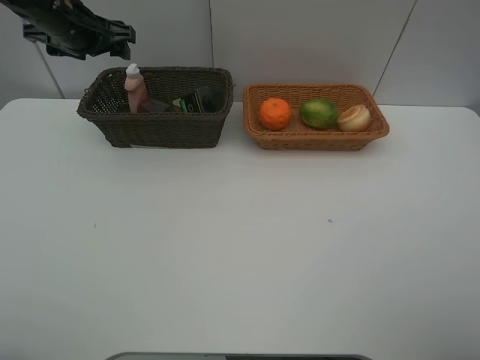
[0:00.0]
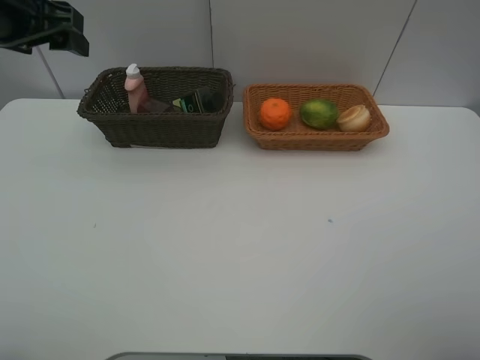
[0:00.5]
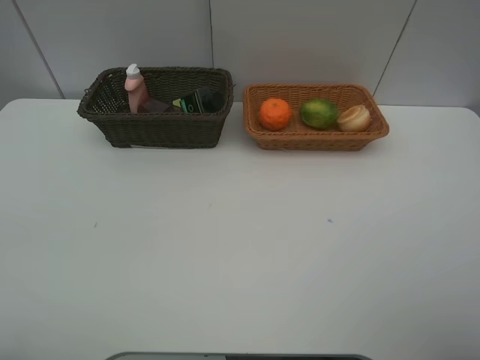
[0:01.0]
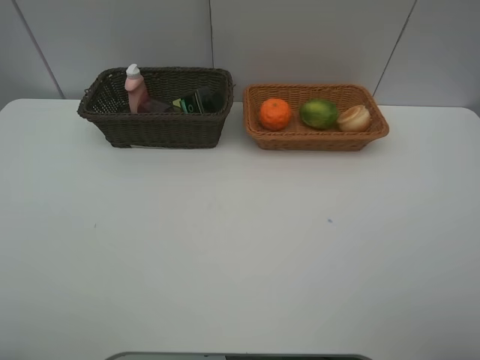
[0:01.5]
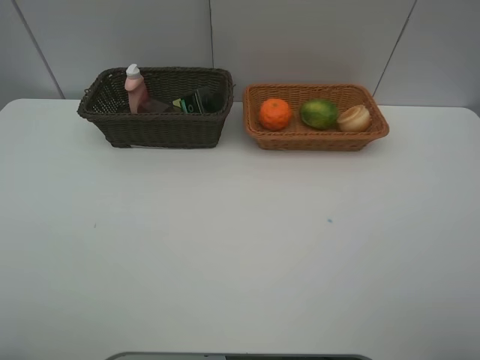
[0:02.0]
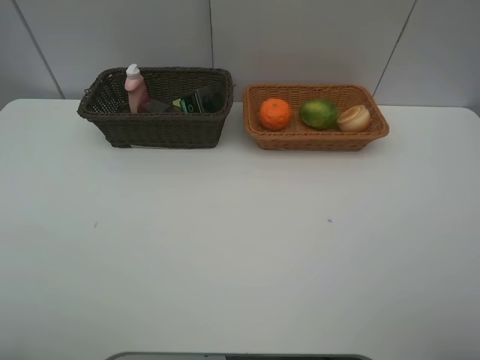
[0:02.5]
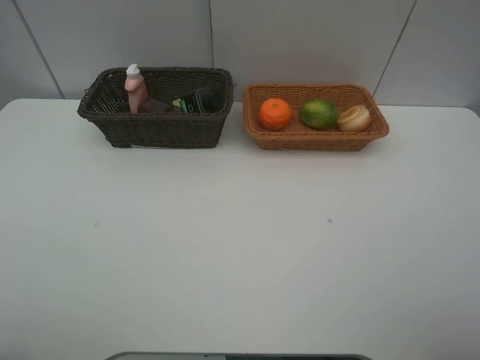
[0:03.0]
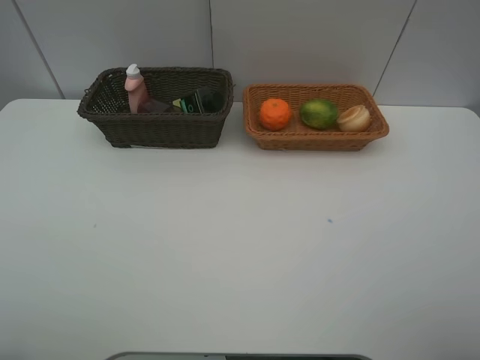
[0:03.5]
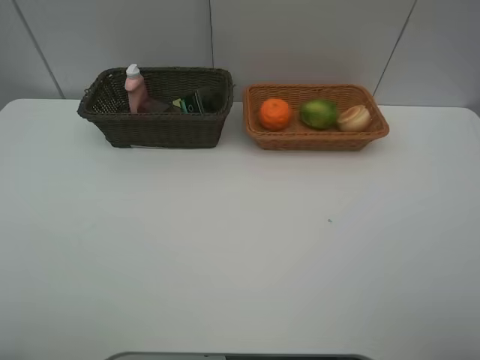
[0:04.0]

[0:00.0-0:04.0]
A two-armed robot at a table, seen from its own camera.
Task of the whole recording: place multiple objects separately in different baskets.
0:00.0 to 0:02.0: The left gripper travels backward by about 40 cm.
0:02.0 to 0:04.0: Both grippers stay about where they are.

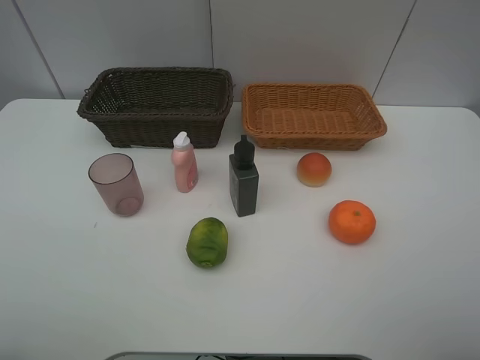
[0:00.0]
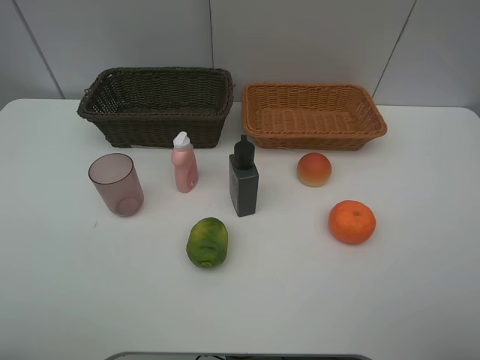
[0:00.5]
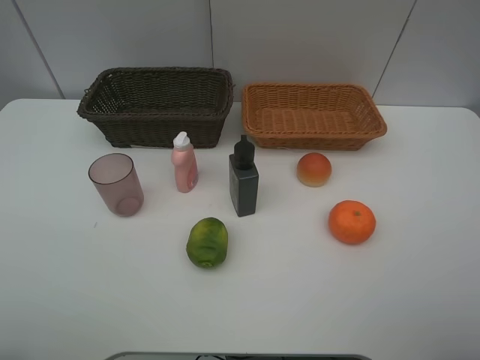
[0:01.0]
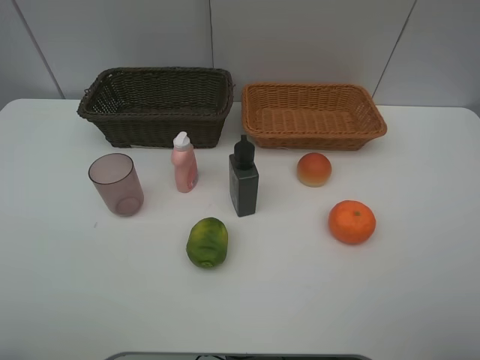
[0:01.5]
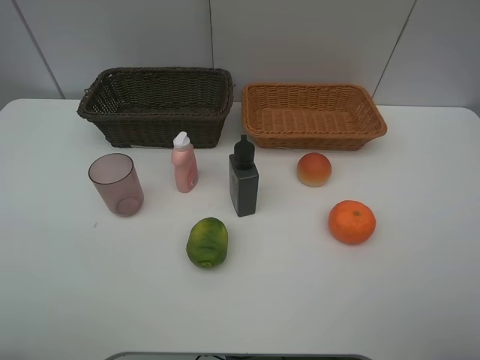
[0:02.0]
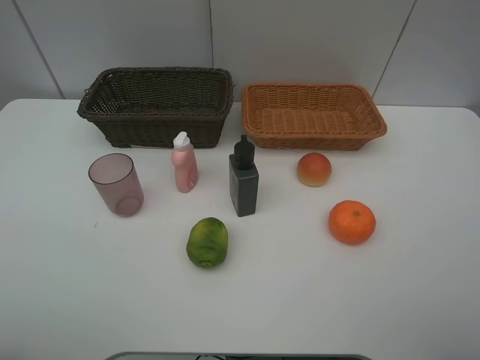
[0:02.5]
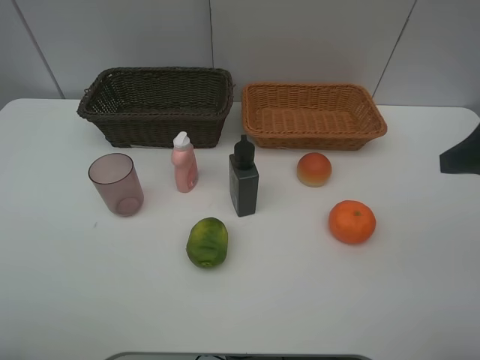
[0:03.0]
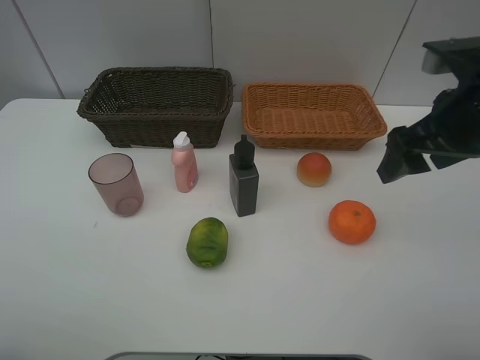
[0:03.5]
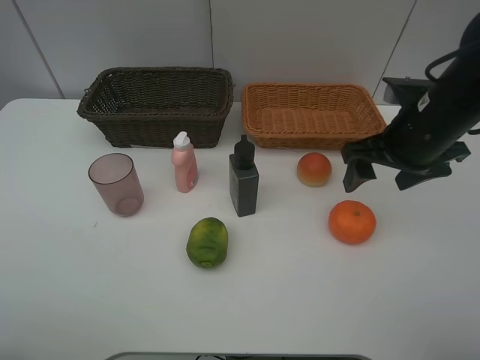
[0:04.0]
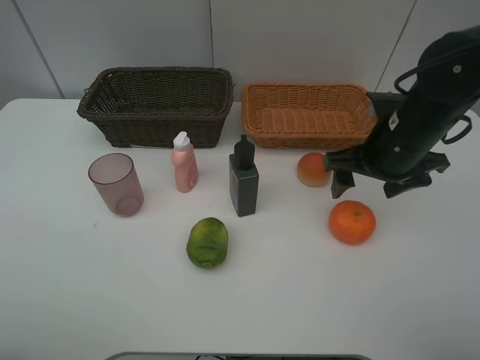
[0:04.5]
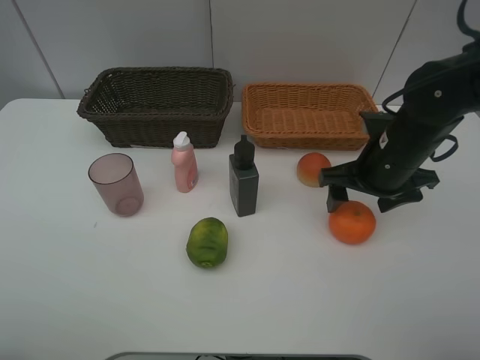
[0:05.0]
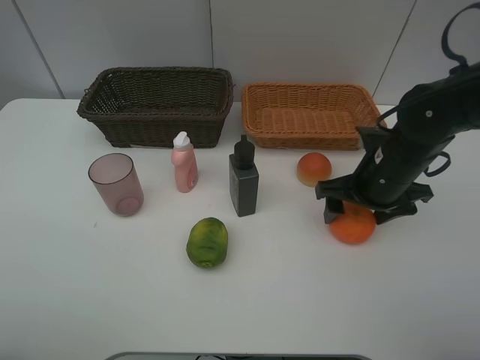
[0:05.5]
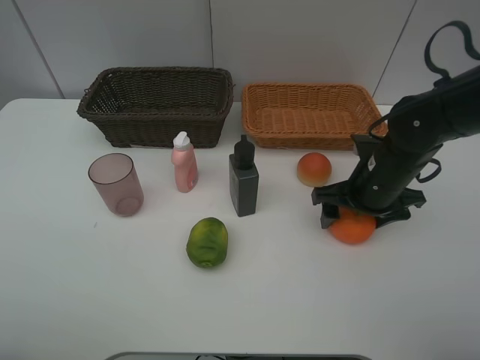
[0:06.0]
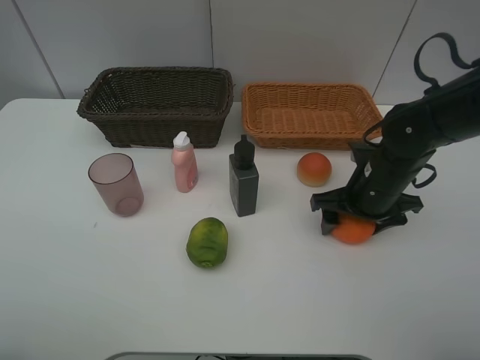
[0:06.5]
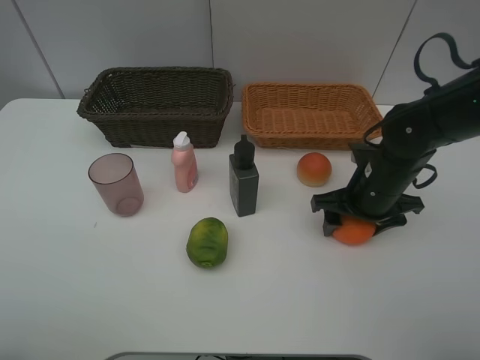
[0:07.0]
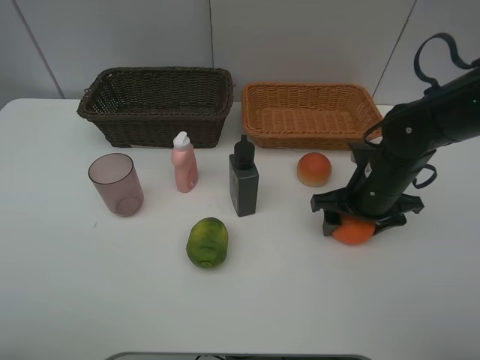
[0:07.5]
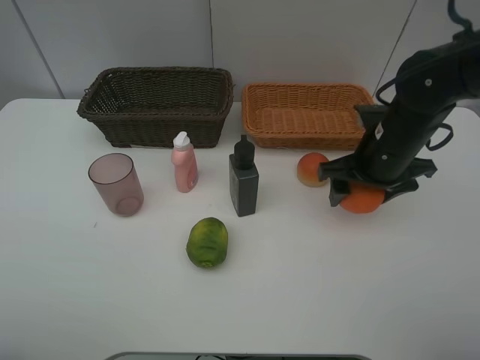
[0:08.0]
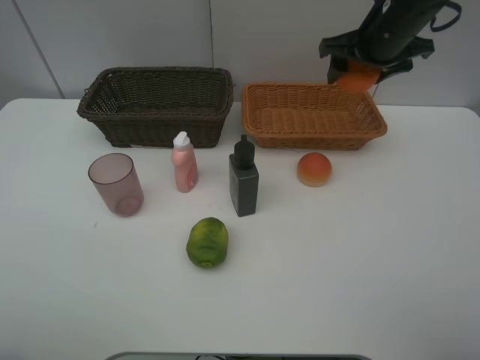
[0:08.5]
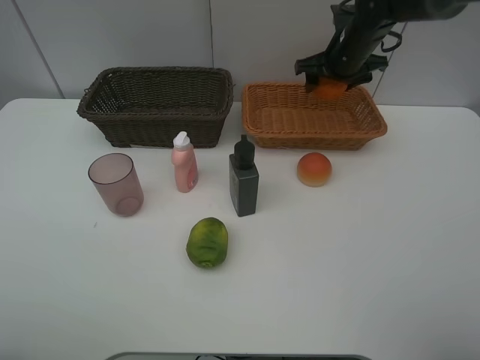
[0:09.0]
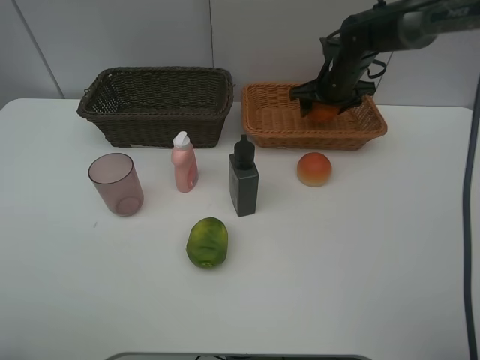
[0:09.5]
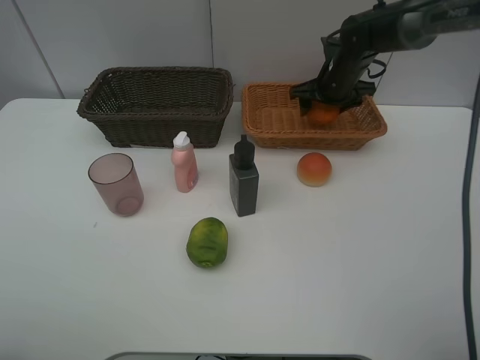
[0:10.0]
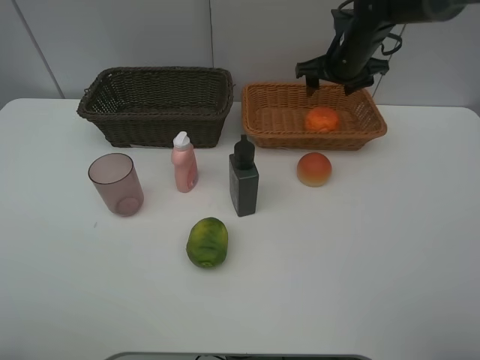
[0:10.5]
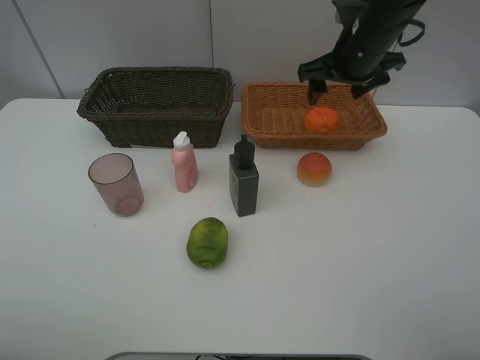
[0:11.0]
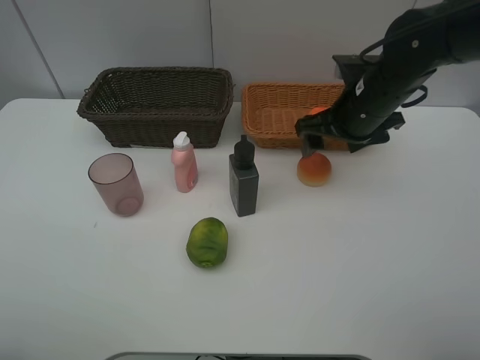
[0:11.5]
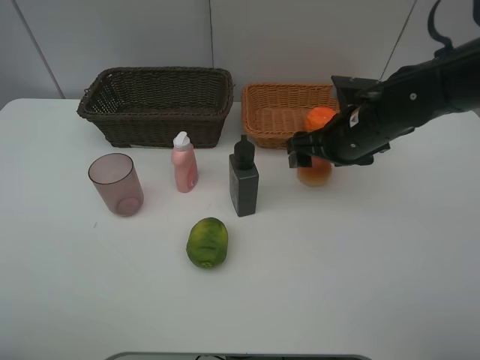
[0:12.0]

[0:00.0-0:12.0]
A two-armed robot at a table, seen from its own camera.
Task of the whole recording: place multiple objects separately in different baskets.
0:00.0 to 0:02.0: The two grippers keep their place.
0:02.0 to 0:04.0: The right gripper is displaced forward by about 25 cm.
0:04.0 to 0:06.0: The right gripper shifts about 10 cm downward.
0:06.0 to 0:08.0: The right gripper ends up approximately 5 cm from where it was.
0:08.0 to 0:10.0: The right gripper goes roughly 20 cm forward.
0:10.0 to 0:12.0: The right gripper goes about 15 cm backward.

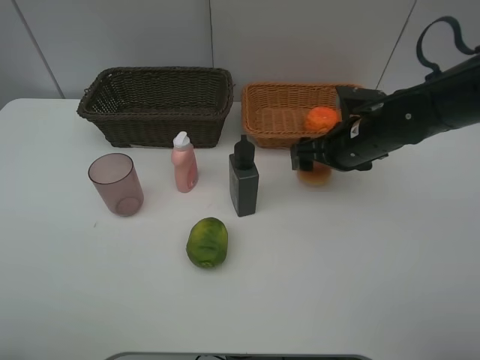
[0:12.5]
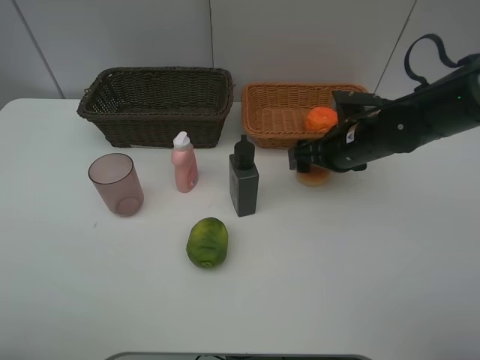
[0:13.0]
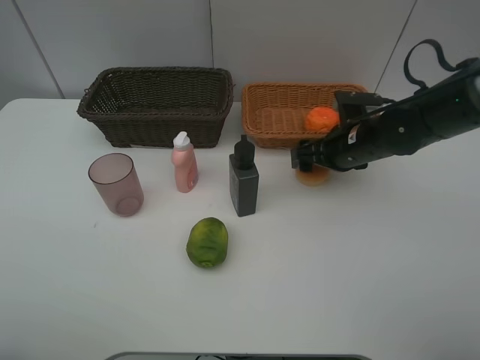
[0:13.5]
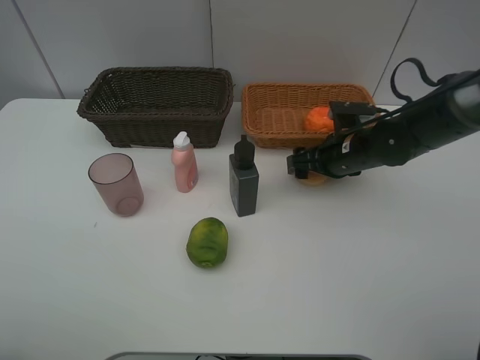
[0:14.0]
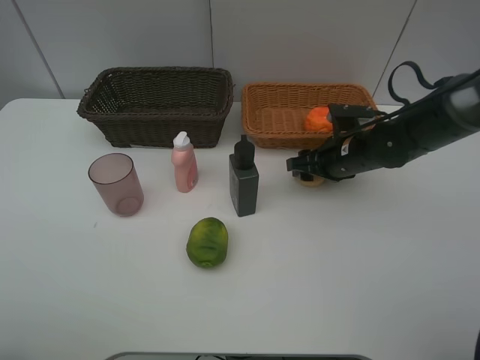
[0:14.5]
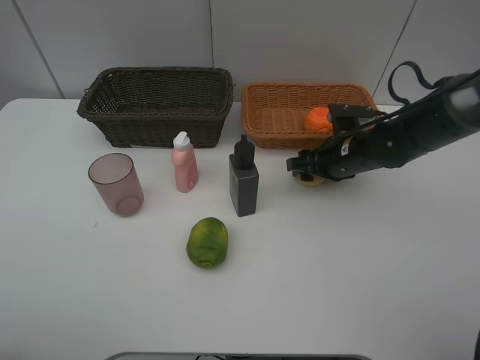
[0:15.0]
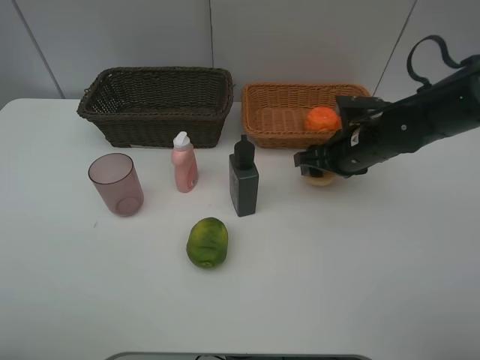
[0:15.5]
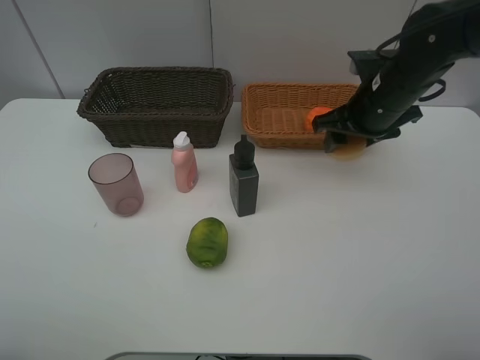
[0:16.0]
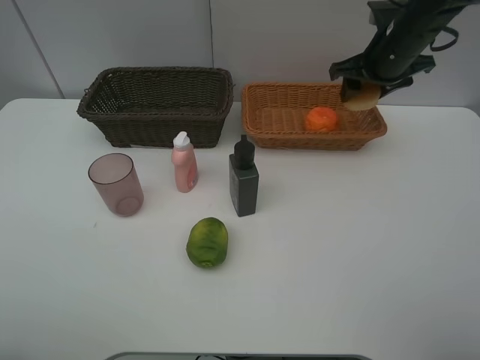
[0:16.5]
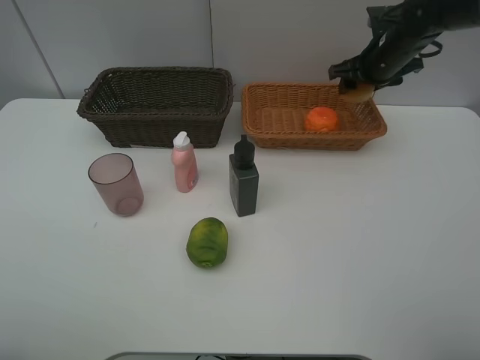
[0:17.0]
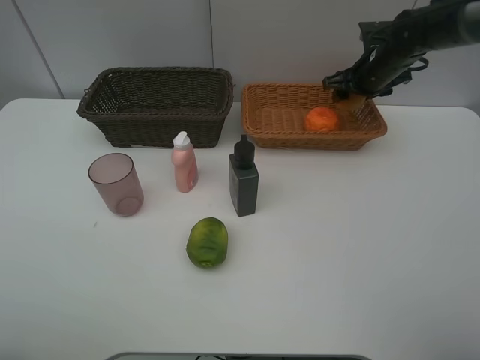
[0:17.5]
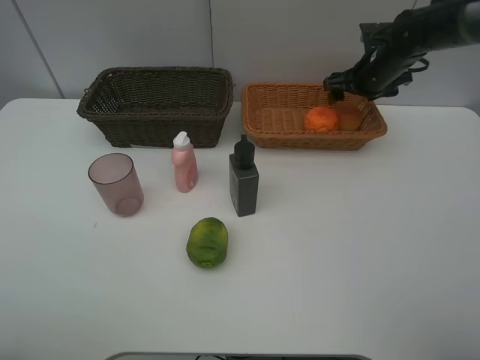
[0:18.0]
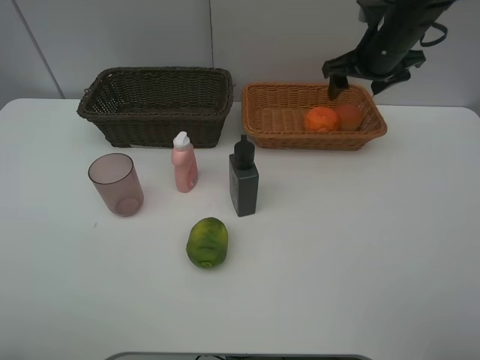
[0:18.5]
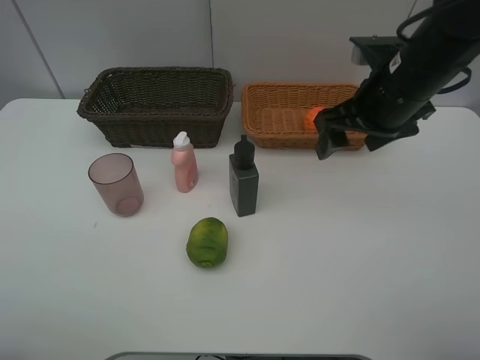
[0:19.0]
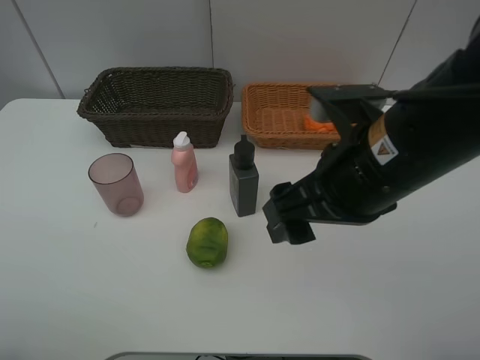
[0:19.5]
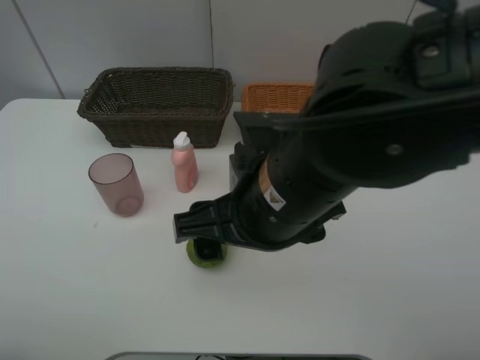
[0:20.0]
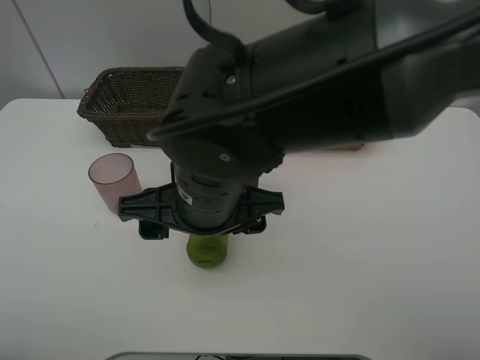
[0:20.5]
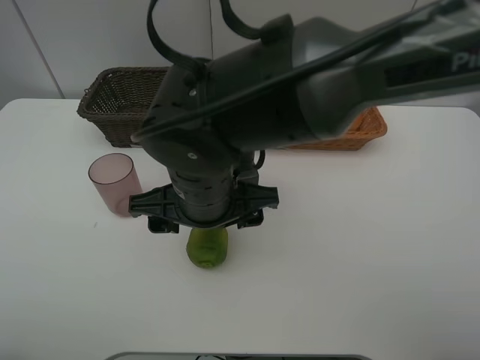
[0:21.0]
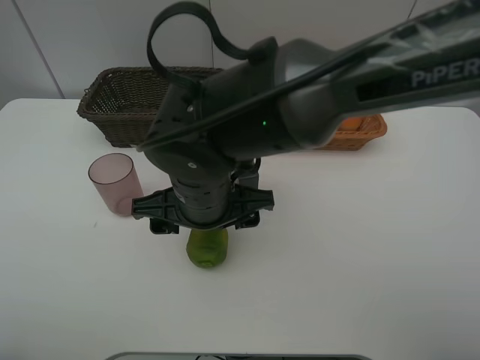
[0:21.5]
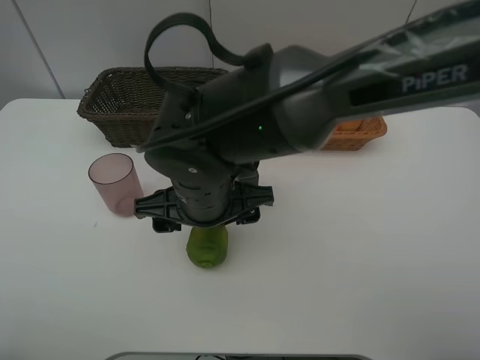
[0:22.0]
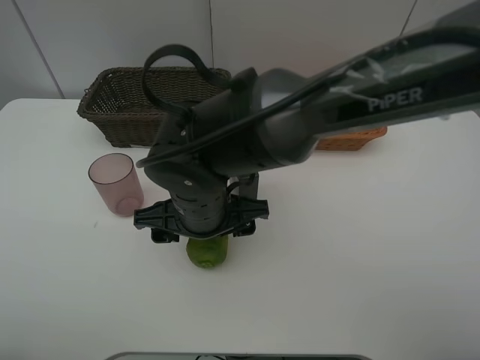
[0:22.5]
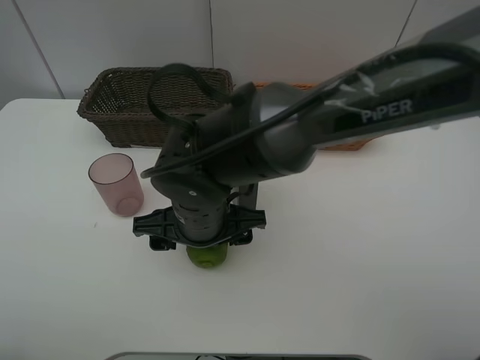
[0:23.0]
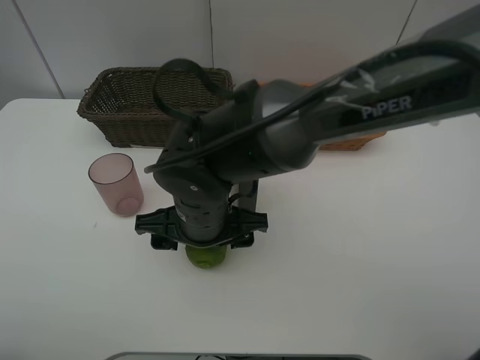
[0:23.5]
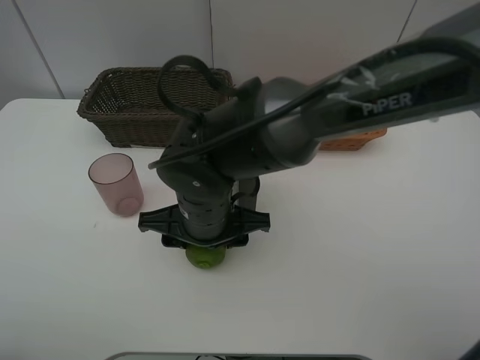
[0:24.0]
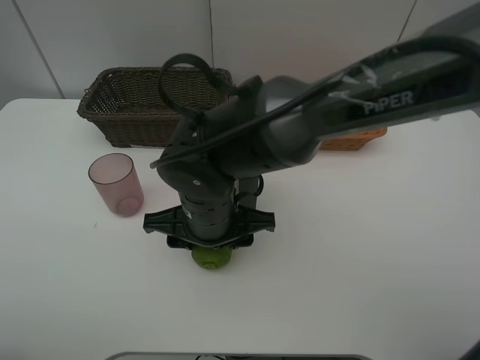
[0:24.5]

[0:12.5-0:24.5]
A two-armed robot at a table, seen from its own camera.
Task of the whole recording: place multiple objects separately in different baskets.
0:12.5 to 0:14.5: The right gripper closes.
0:14.5 to 0:16.5: The right gripper heads upward and forward, covering some 15 cm.
0:16.5 to 0:18.5: The right gripper opens its fingers.
0:18.5 to 0:20.5: The right gripper shifts about 35 cm to the left and backward.
0:20.5 to 0:22.5: The right gripper goes some 5 cm downward.
0:22.5 to 0:24.5: The right gripper closes up.
